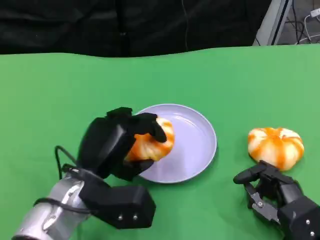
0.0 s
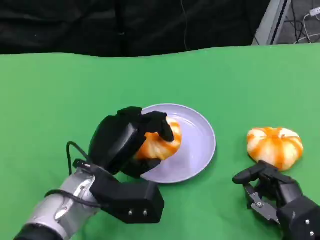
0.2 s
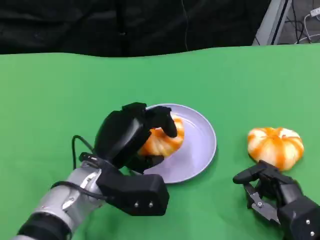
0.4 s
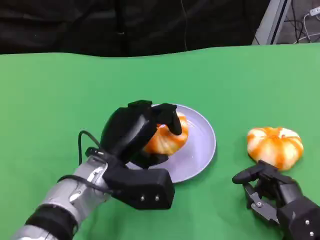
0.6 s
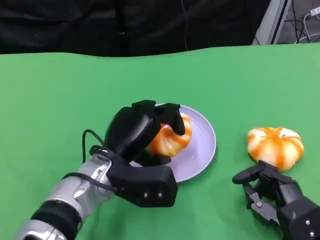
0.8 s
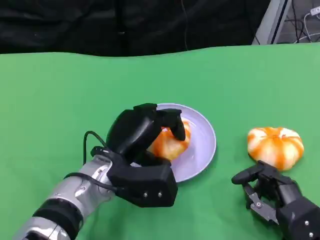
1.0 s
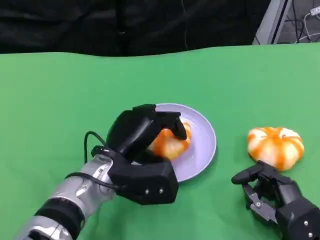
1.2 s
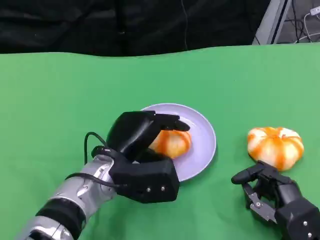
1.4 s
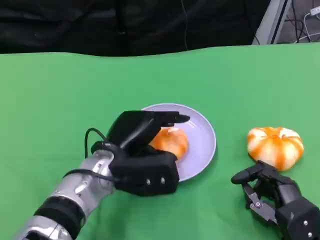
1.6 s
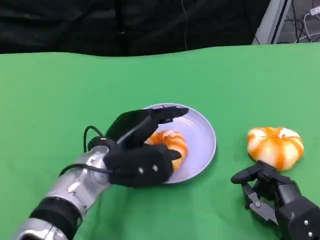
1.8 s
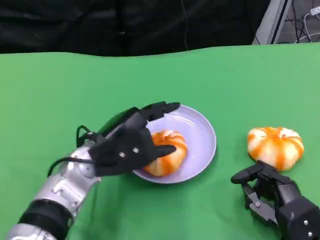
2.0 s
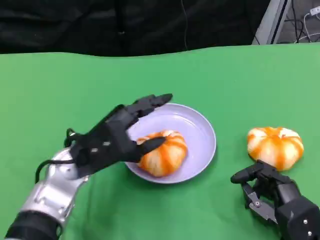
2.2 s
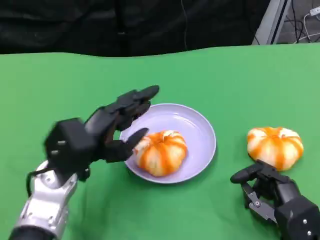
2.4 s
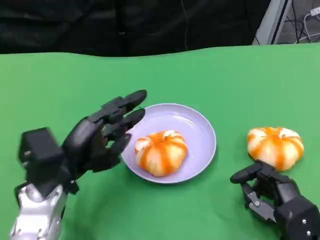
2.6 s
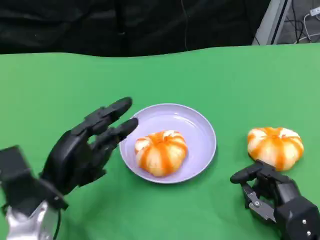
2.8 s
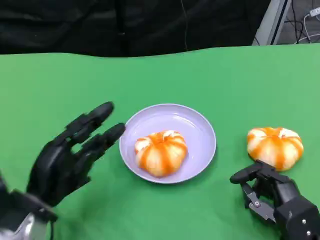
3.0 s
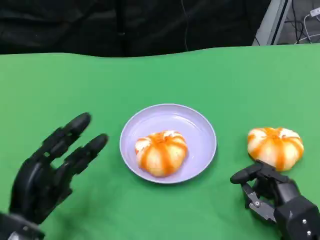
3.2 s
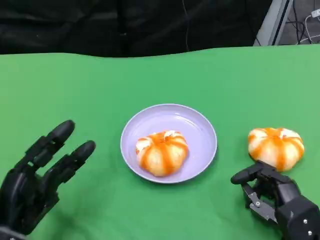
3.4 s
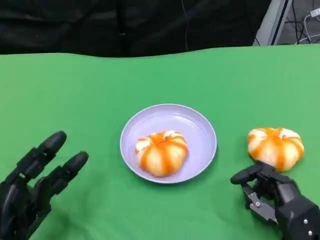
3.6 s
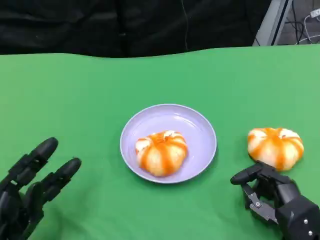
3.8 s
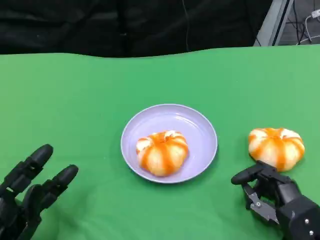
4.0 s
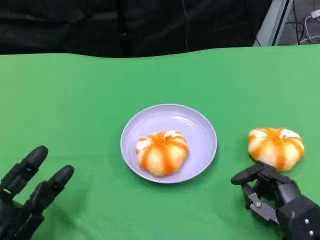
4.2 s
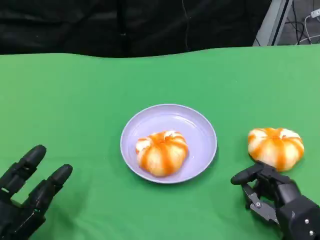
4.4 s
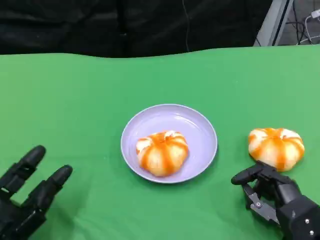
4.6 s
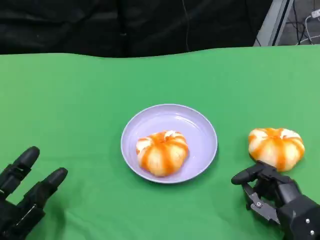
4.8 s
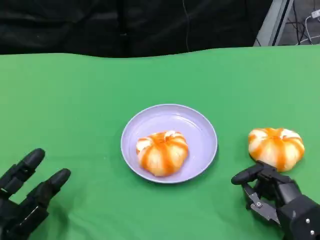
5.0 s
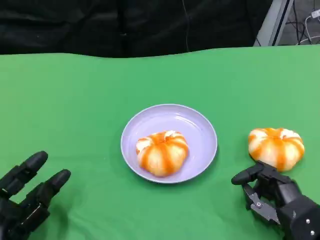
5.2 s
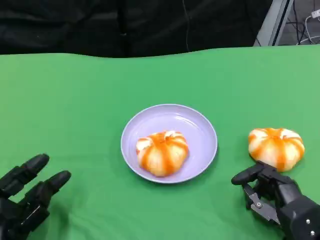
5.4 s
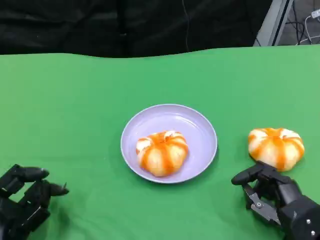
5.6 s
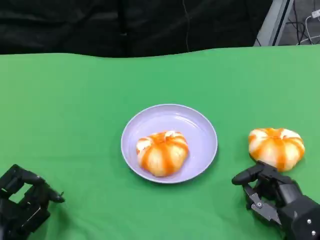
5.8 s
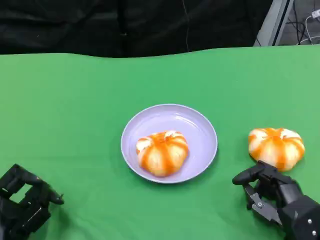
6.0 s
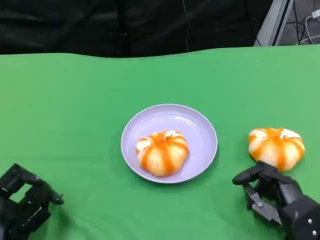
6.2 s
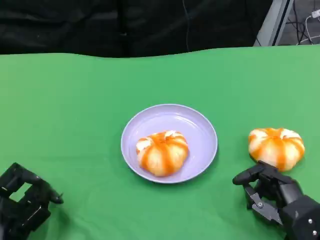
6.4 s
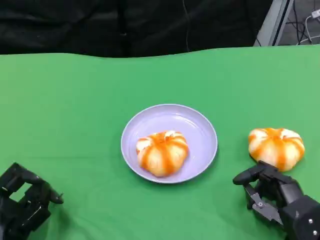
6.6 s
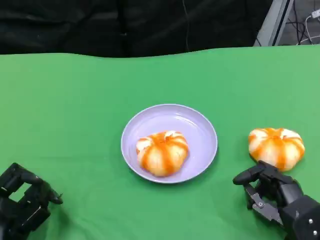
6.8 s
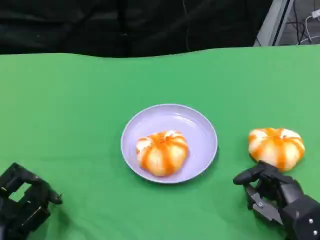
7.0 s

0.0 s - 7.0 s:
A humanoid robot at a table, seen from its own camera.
Task of the whole recording: Grasp the bread from the table and place it into the plate.
0.0 s - 1.4 s: The hands stay close to where they were, moving slightly.
1.4 s - 2.8 s: The left hand heads to the left, covering some 10 cm.
2.8 s - 4.2 s: The left hand is displaced backward, to the left and downward by about 10 cm.
4.2 s - 5.6 s: The hands move only a little.
5.6 s - 7.0 s: Neither hand changes place.

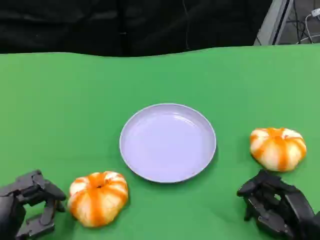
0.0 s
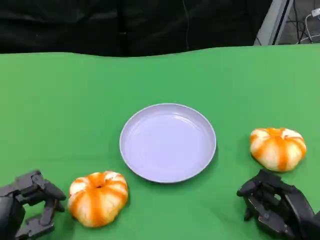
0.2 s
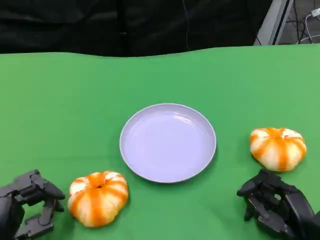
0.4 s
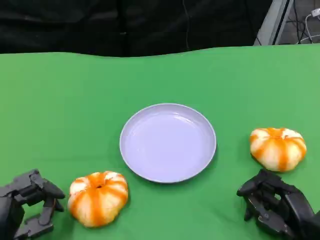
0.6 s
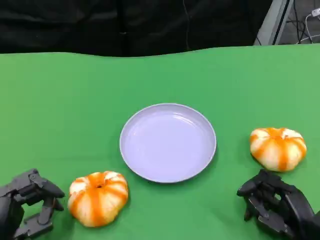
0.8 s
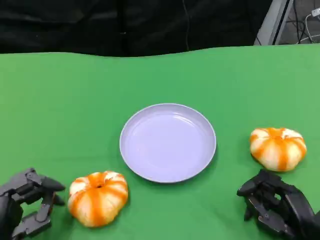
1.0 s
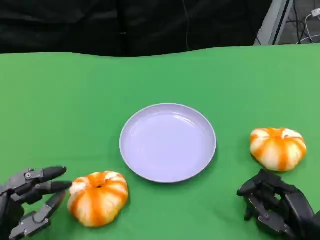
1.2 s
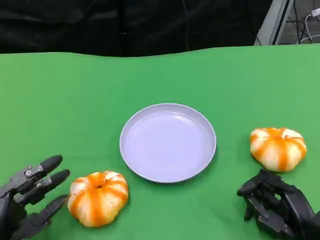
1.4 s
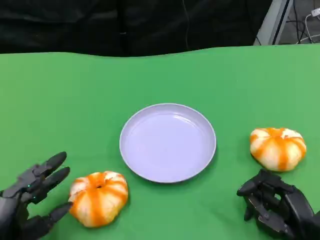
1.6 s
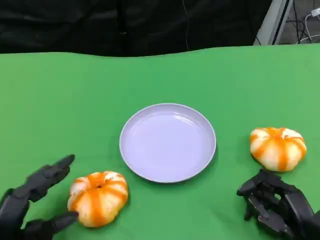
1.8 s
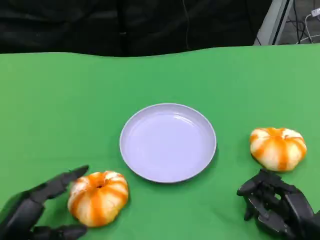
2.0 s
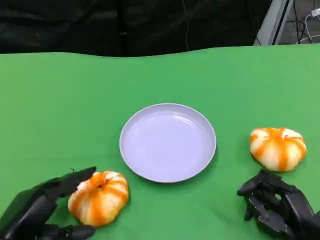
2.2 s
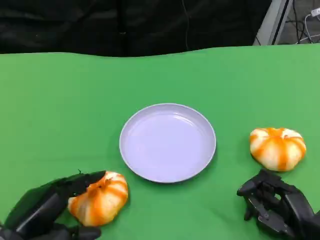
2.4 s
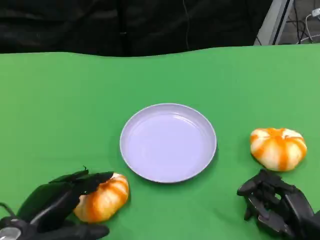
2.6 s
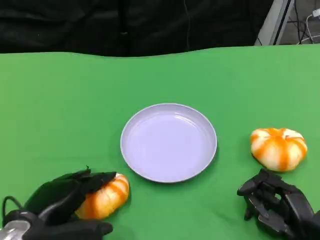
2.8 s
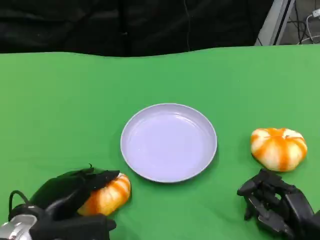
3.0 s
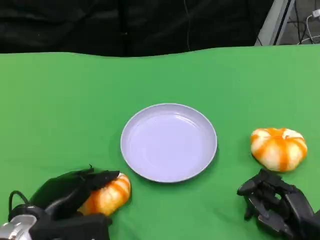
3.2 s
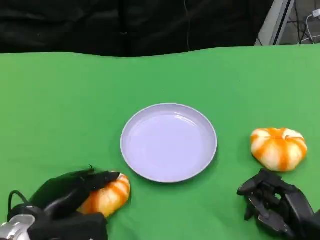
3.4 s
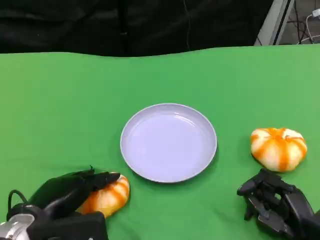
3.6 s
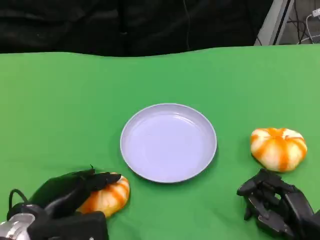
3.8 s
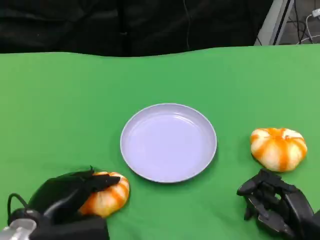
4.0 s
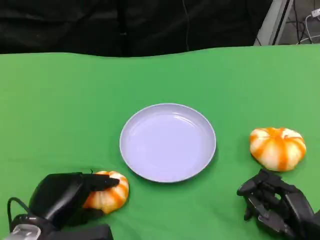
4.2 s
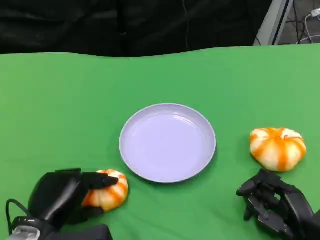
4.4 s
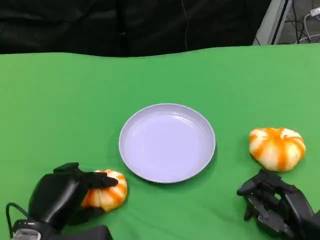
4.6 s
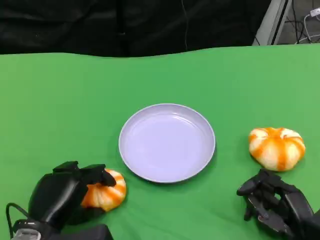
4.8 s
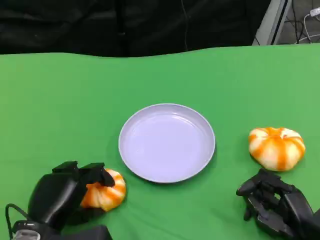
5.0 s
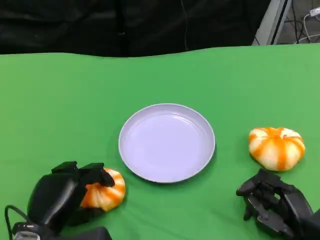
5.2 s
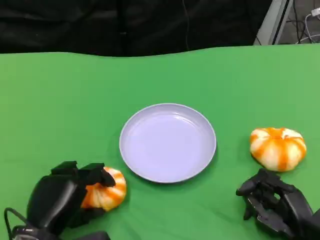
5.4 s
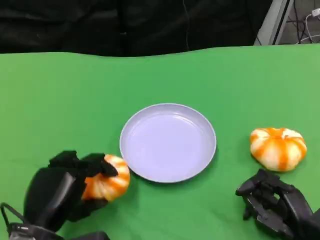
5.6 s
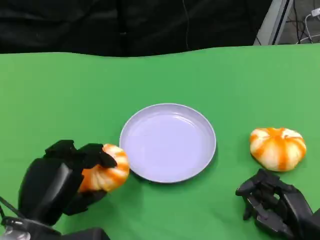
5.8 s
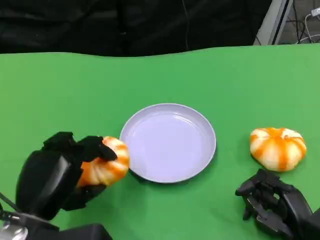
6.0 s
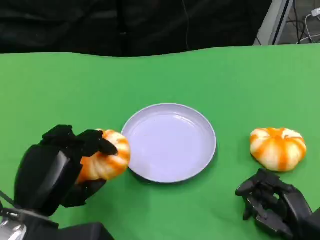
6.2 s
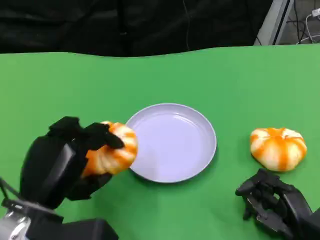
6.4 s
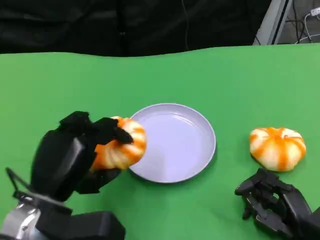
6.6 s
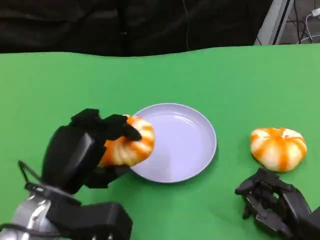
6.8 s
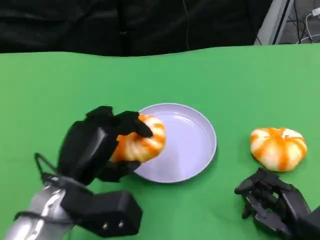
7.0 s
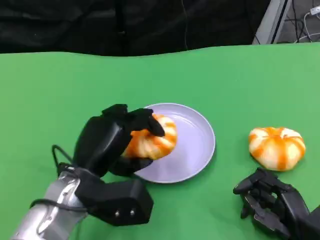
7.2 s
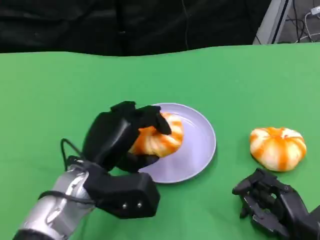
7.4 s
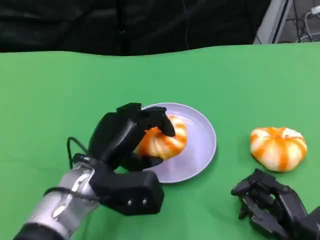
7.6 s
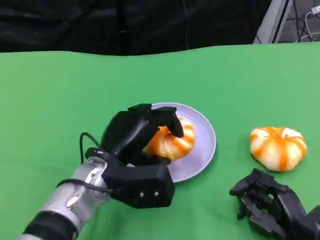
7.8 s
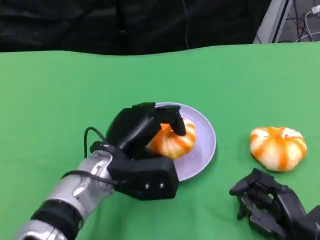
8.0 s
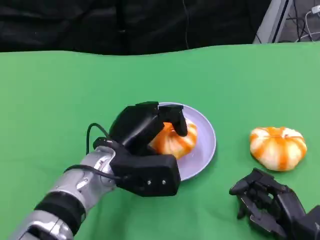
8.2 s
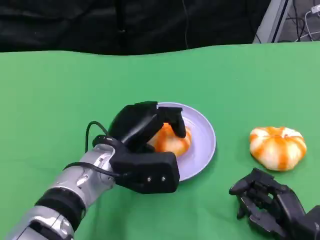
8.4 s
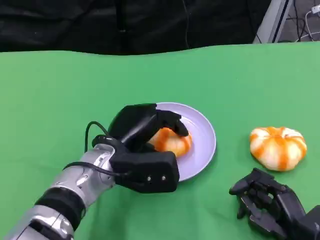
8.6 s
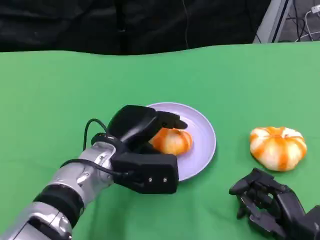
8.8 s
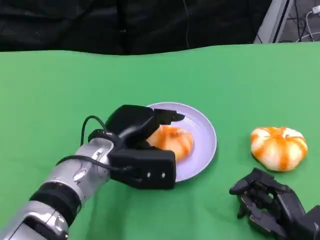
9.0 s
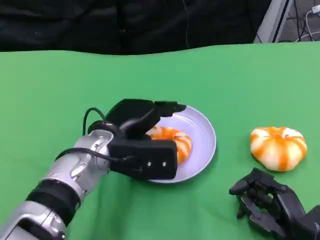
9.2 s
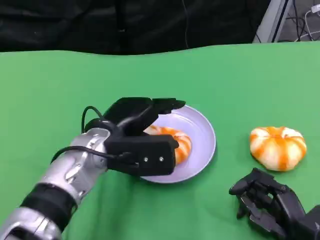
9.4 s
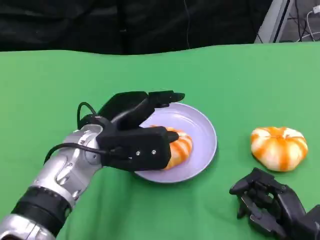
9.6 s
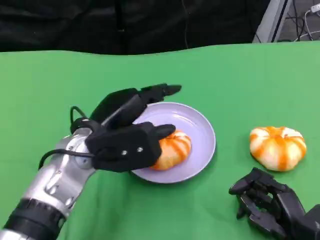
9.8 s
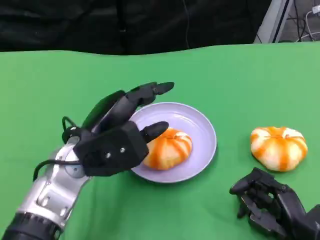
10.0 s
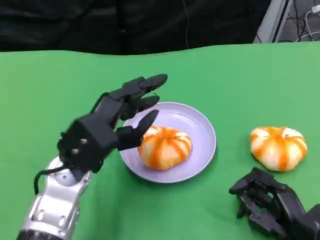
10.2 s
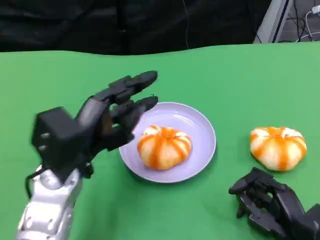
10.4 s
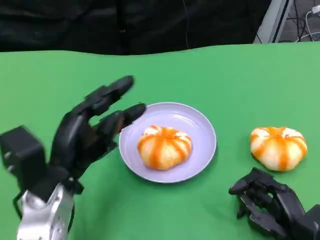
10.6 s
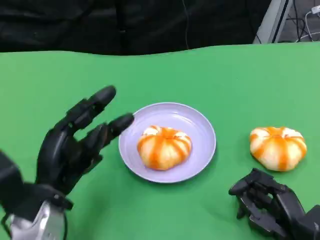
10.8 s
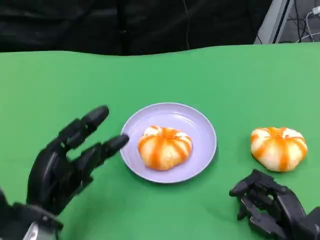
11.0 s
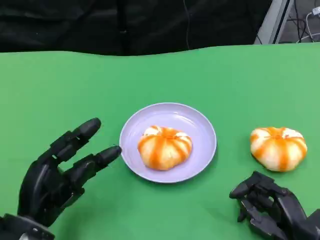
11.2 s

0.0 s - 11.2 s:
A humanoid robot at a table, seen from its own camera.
Task of the whole recording: Grasp the bread from the table and place it into the plate.
0.0 s - 1.6 s: There are only small adjustments of the hands.
1.6 s - 3.2 s: The left hand heads upward and to the right, covering some 5 cm.
4.8 s - 6.4 s: The left hand moves upward, roughly 5 cm.
6.4 s - 8.0 s: The left hand moves to the right and forward, some 15 cm.
8.0 s - 9.6 s: The hands make only small movements.
9.6 s - 11.2 s: The left hand travels to the left, backward and downward by some 15 cm.

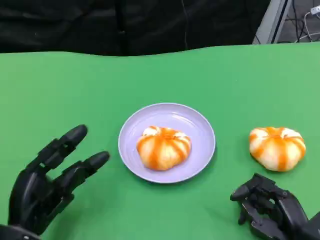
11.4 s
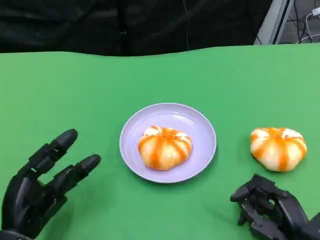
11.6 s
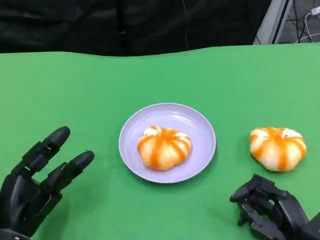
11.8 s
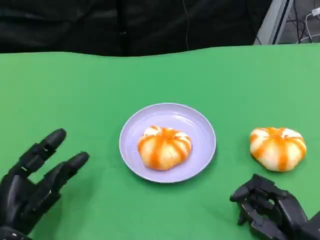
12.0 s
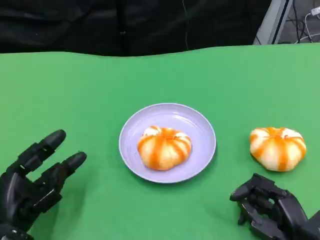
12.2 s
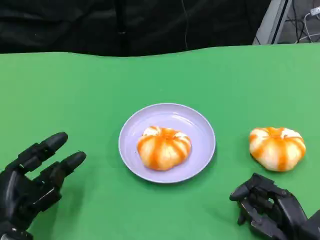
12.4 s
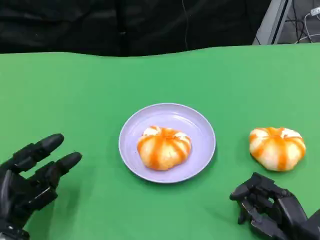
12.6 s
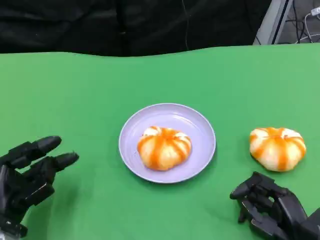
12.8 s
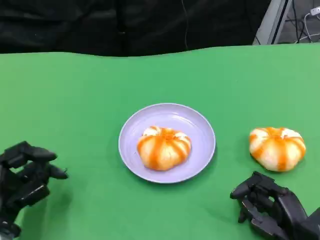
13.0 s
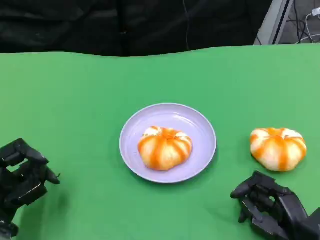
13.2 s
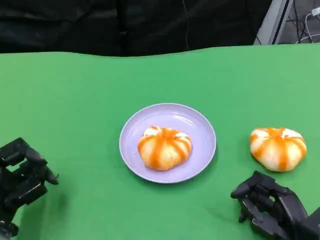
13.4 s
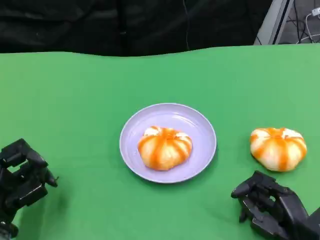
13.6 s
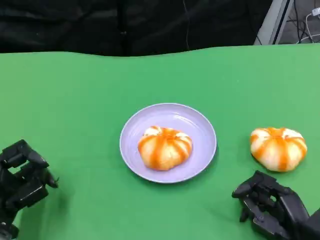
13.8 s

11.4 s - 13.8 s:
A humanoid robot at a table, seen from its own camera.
Task of the whole recording: Grasp the bread from the table and place it into the plate.
11.4 s - 13.8 s: The hands stay close to where they were, moving slightly.

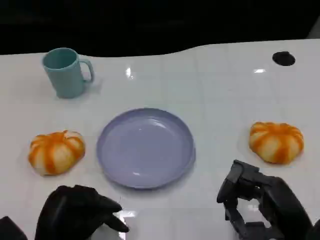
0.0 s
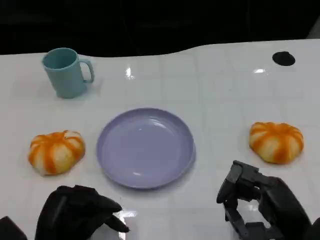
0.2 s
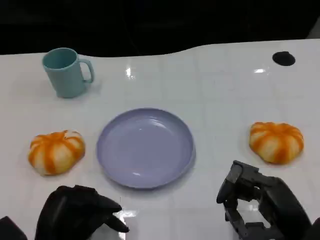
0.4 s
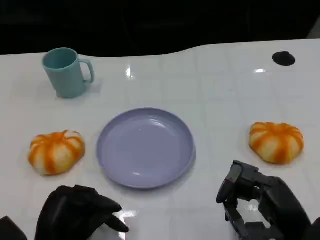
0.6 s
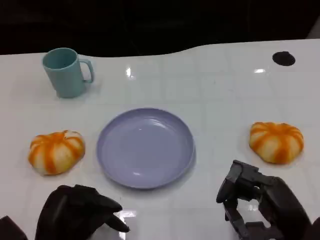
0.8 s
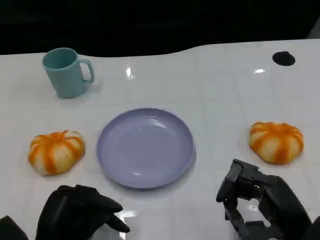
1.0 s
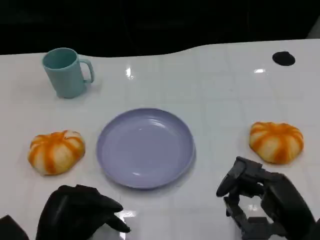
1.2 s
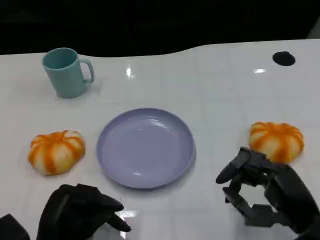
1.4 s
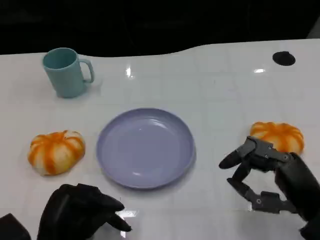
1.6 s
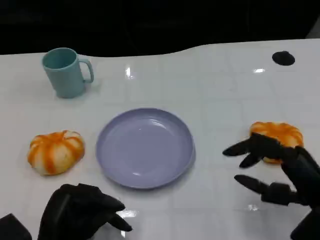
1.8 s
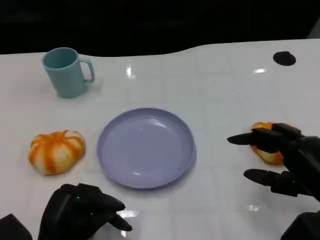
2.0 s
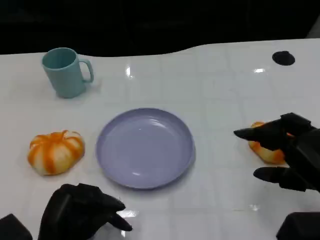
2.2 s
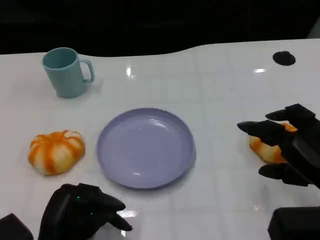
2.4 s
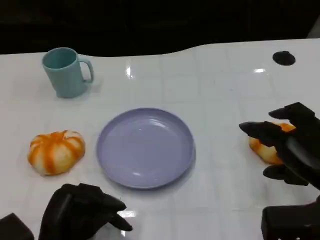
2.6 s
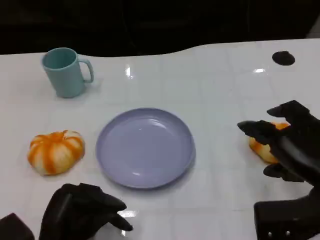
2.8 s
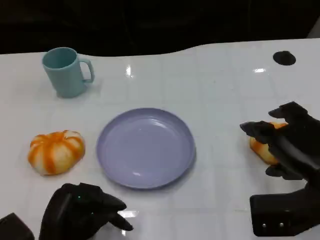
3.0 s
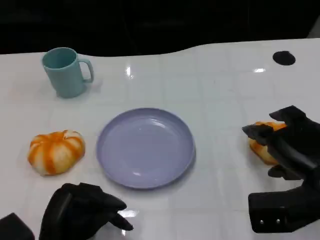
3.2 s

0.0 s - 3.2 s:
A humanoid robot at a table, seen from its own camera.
Task of the whole recording: Grasp the bread from the table and place it into the plate.
0.0 s - 1.6 s: The hands make only small movements.
1.6 s - 3.2 s: The right hand moves forward, roughly 5 cm.
